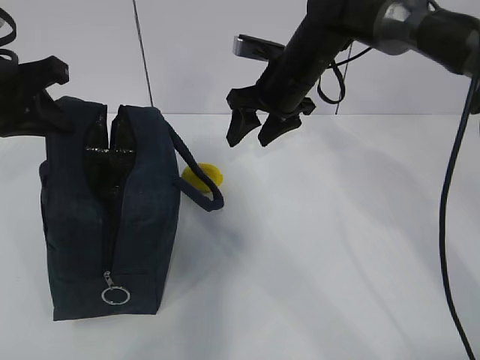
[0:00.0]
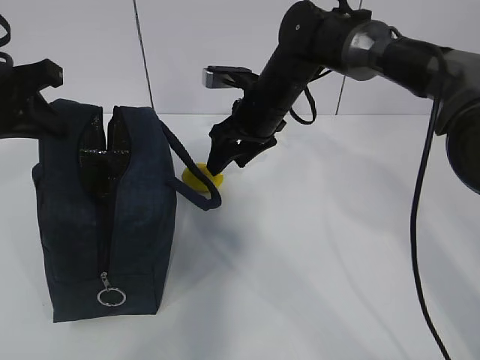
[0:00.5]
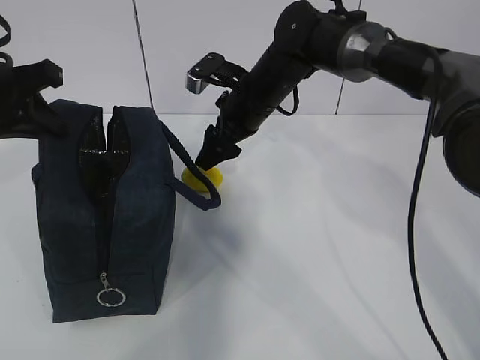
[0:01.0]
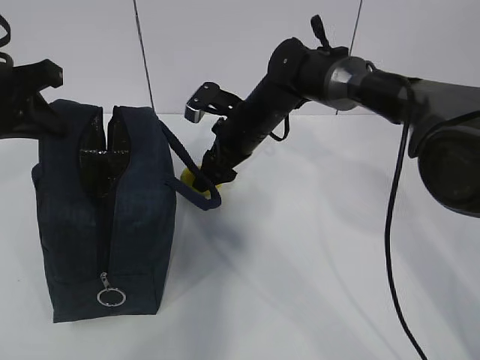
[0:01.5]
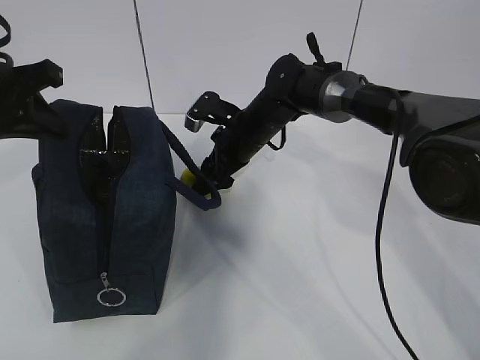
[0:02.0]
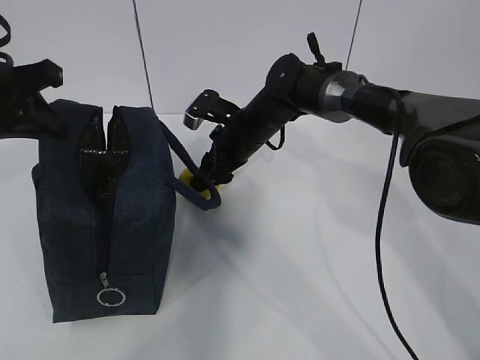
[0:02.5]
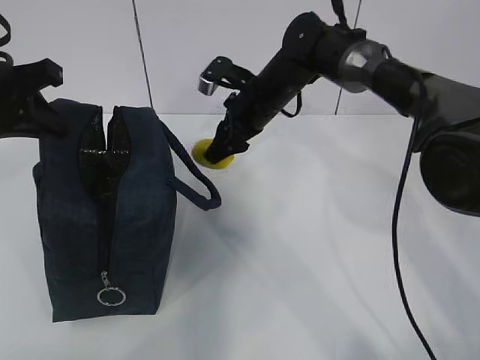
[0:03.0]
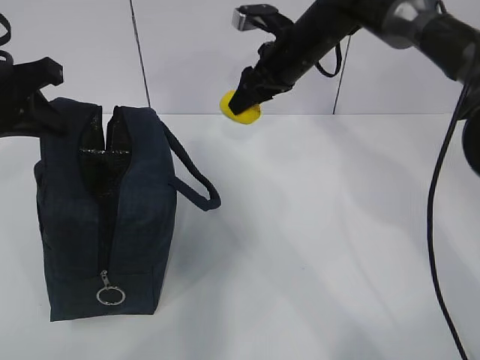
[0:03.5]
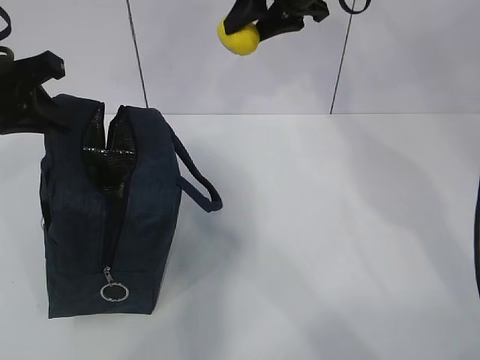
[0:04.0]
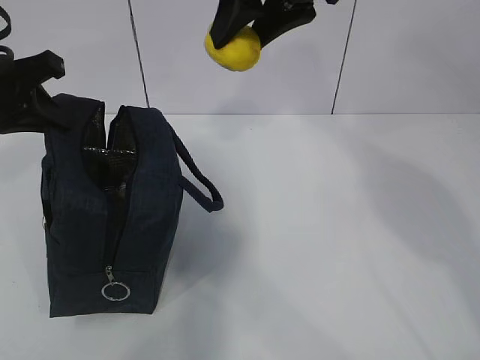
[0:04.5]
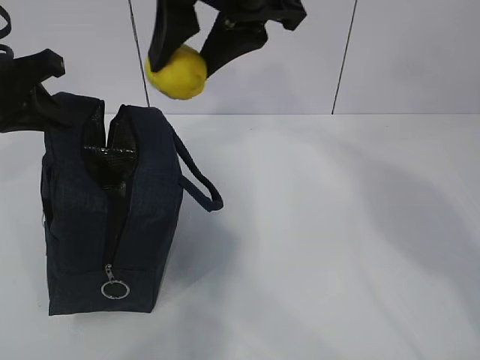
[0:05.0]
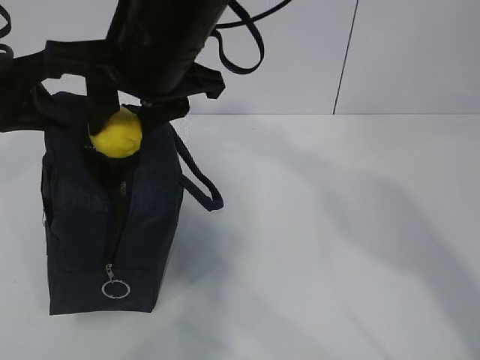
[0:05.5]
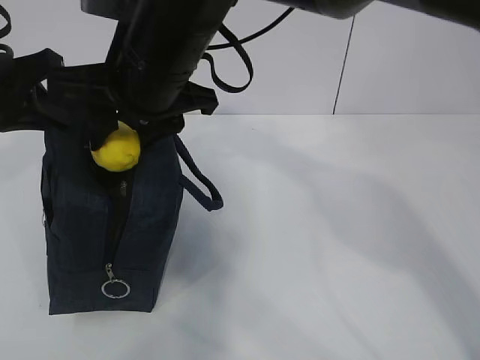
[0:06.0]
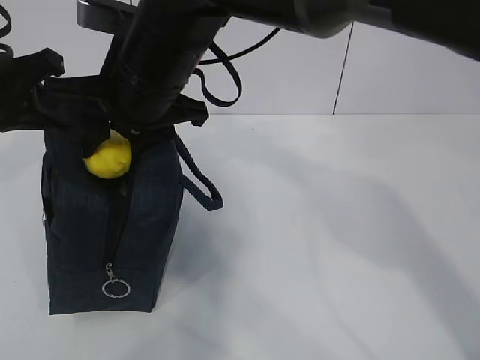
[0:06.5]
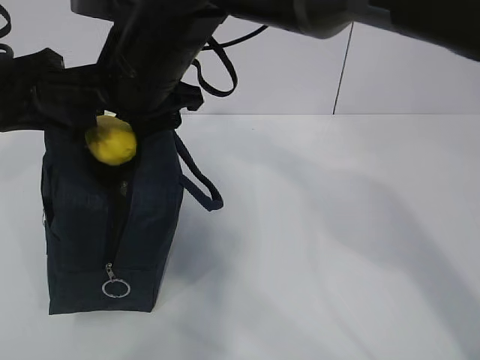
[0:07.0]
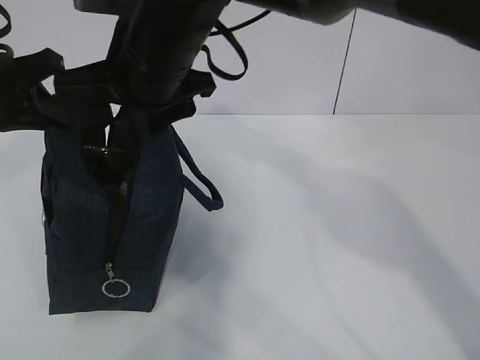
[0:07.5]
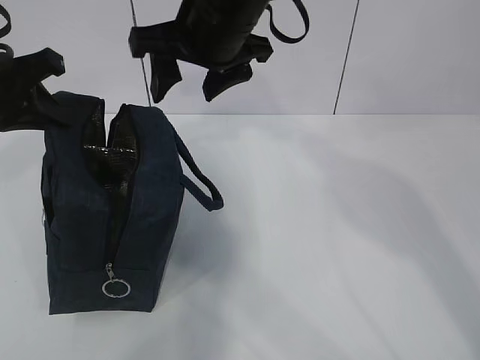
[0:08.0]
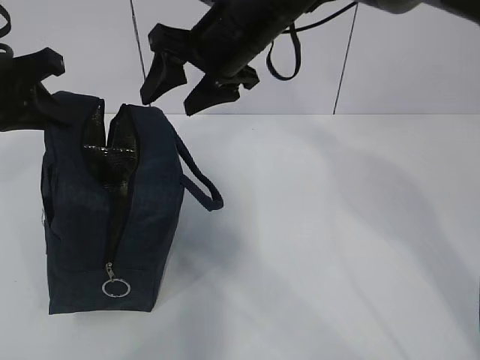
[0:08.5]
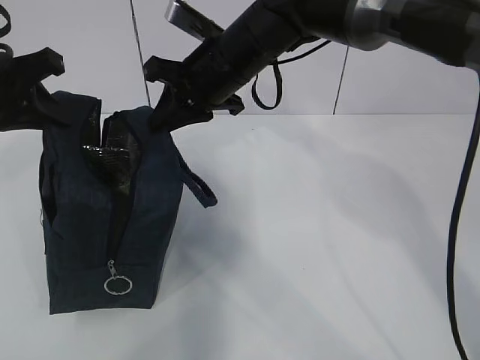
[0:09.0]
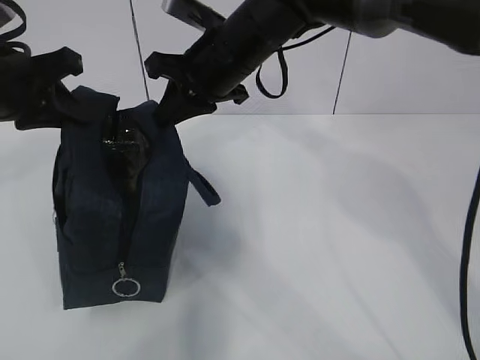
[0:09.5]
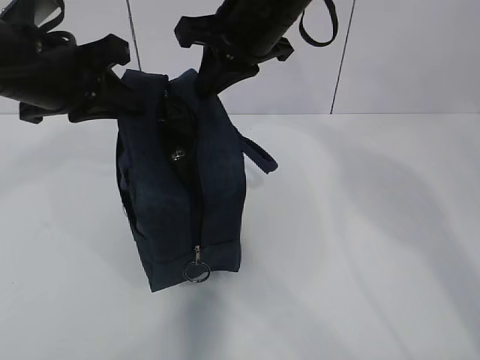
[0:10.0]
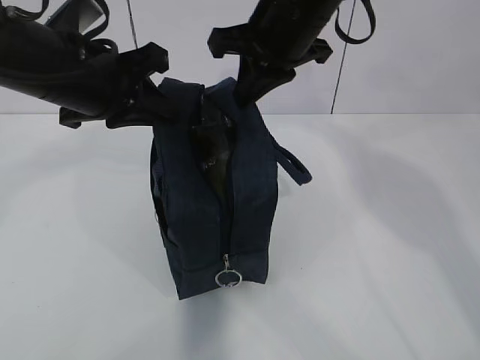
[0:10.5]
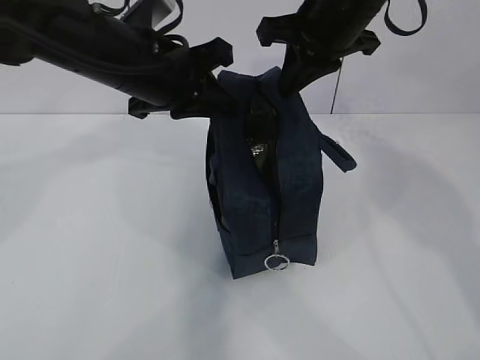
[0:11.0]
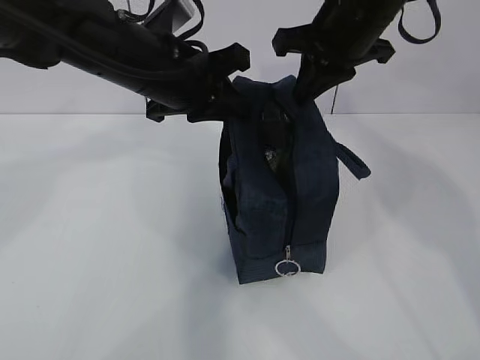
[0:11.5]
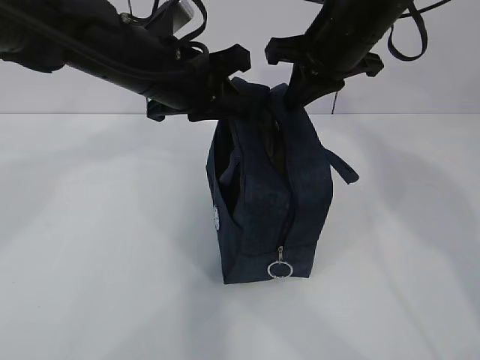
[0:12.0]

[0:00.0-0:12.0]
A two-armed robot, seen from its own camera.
Step, 1.5 to 2.5 s: Grab the lunch bag with your right hand.
Step, 3.0 to 6.5 s: Move the lunch bag to the right.
0.0 to 2.0 s: The right gripper goes some 10 cm downward and to the left.
2.0 to 4.0 s: The right gripper is displaced upward by about 20 cm.
4.0 to 6.0 s: The right gripper moves to the left and backward, about 20 cm.
6.0 to 8.0 s: The right gripper travels to the right by roughly 5 cm.
8.0 to 10.0 s: The right gripper closes its fingers. The left gripper moves to the right, about 5 cm.
10.0 to 12.0 s: The two grippers go about 10 cm to the right.

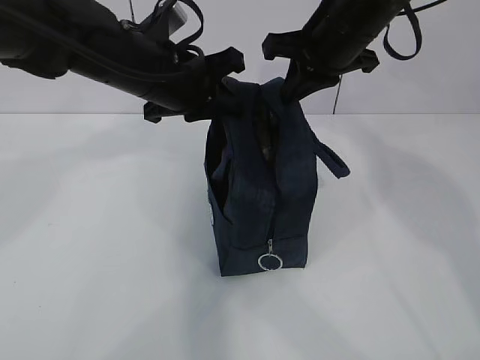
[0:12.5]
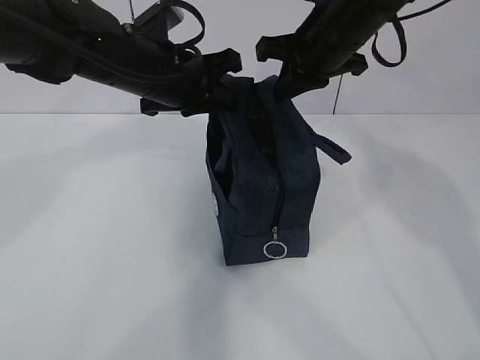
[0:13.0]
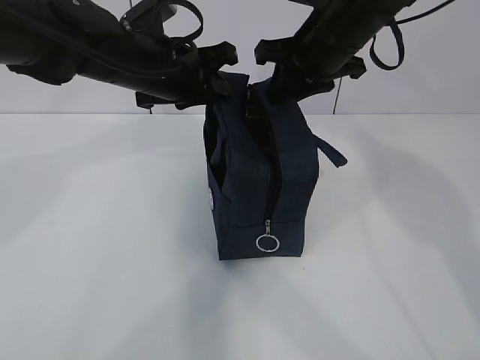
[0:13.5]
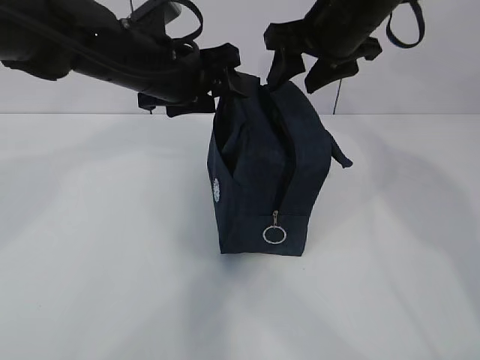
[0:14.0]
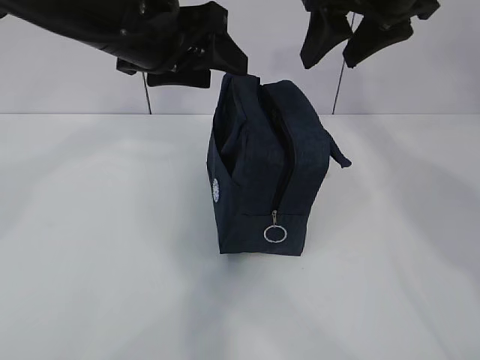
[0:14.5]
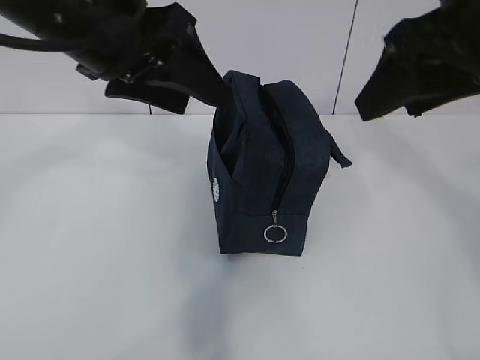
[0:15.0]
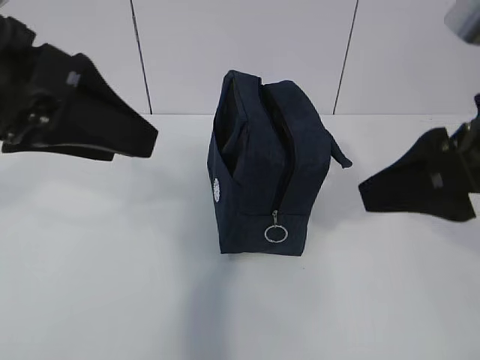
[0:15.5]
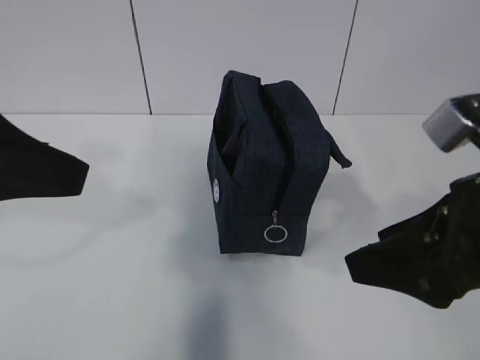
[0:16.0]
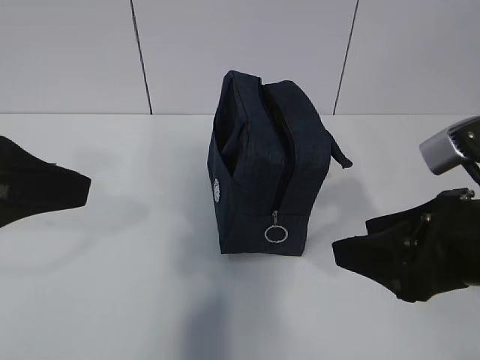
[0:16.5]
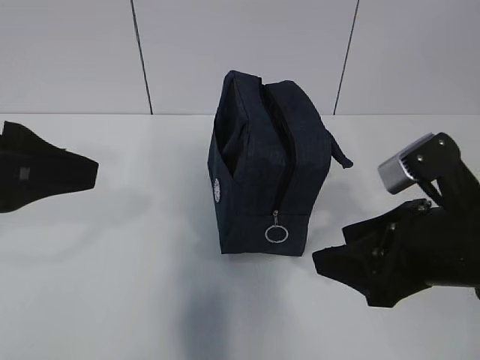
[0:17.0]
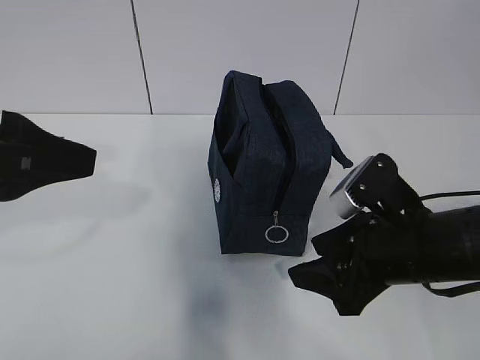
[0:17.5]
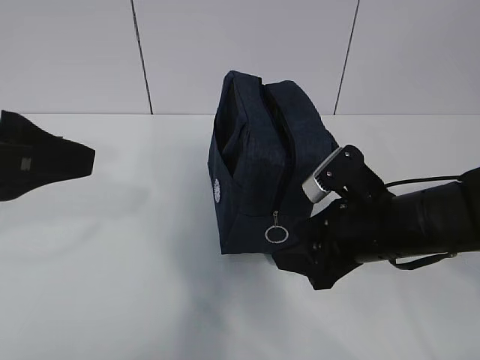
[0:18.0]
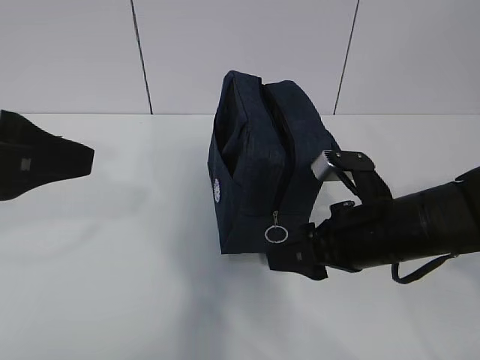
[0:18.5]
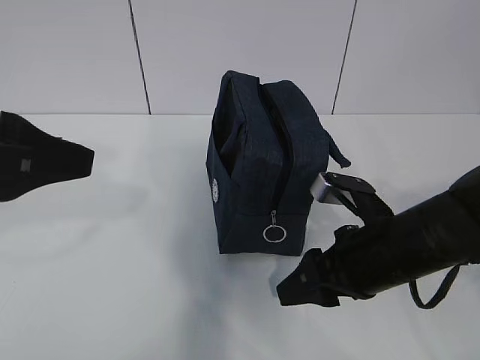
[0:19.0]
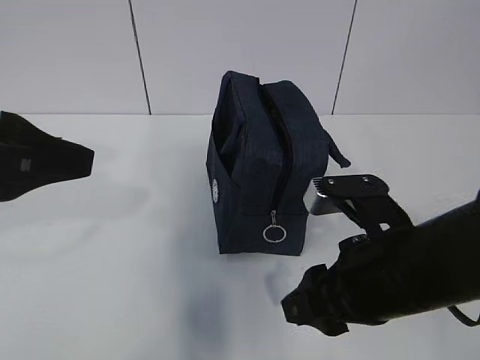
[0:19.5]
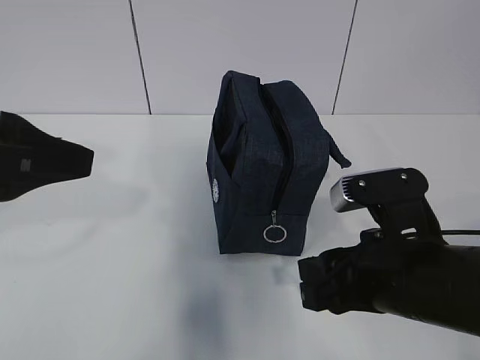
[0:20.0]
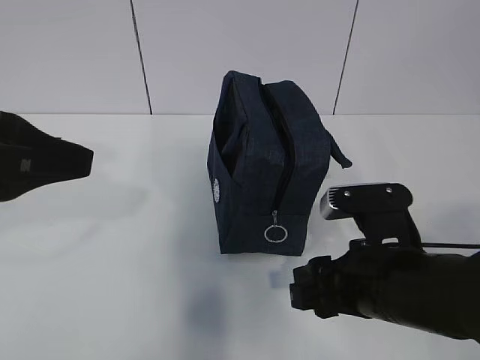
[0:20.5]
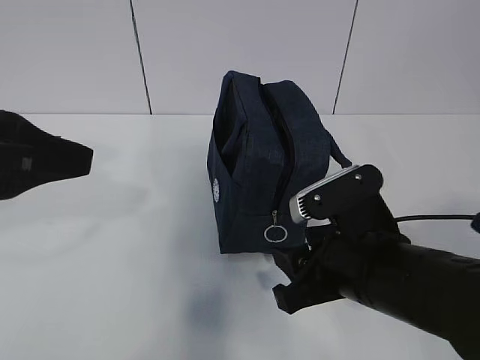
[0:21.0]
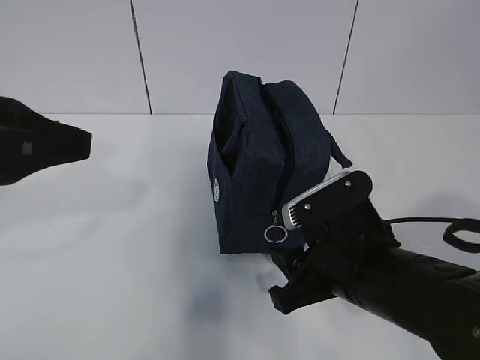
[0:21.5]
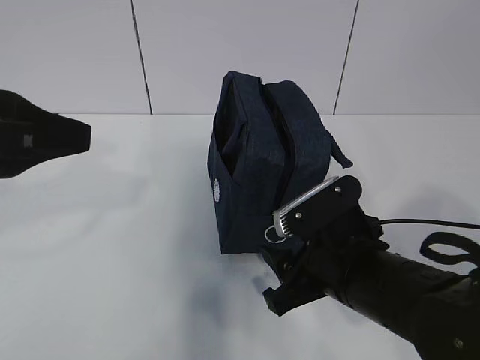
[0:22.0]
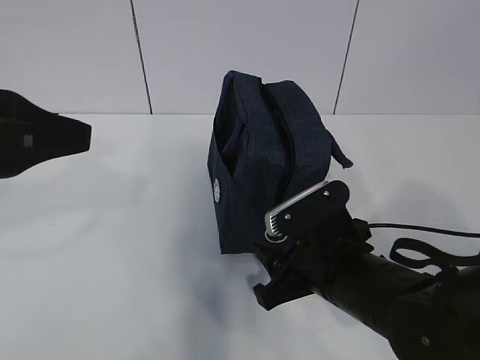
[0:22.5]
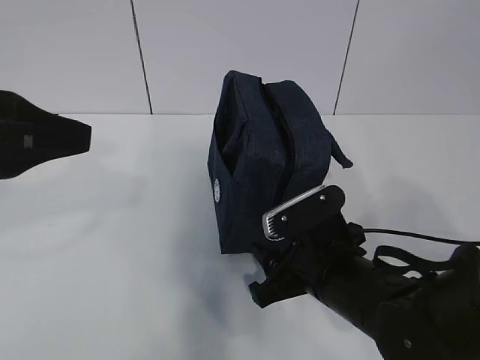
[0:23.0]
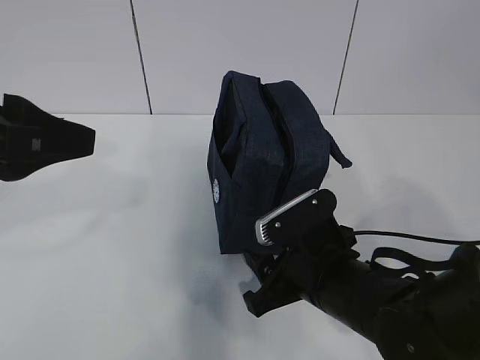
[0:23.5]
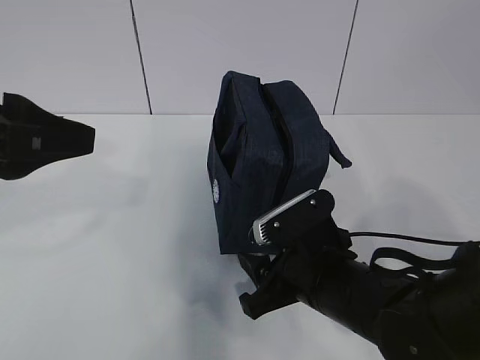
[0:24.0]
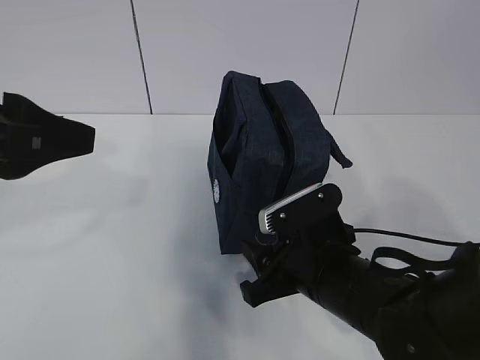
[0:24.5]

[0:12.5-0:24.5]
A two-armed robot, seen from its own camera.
12.5 to 14.5 s: The grippers both shift upward by approximately 5 cm. The right gripper opens up. Meanwhile the left gripper opens up.
14.5 to 16.5 s: The right gripper moves backward and downward, roughly 25 cm, while the left gripper goes roughly 20 cm backward and to the left.
16.5 to 18.5 s: The right gripper travels forward and downward by roughly 15 cm.
18.5 to 20.5 s: The right gripper is displaced backward by approximately 5 cm.
20.5 to 22.5 s: The right gripper changes place by some 5 cm.
22.5 to 24.5 s: The grippers stay close to where they were, moving slightly.

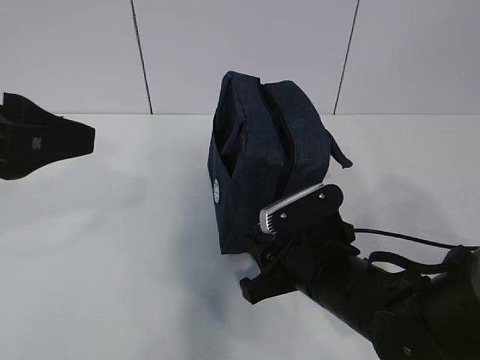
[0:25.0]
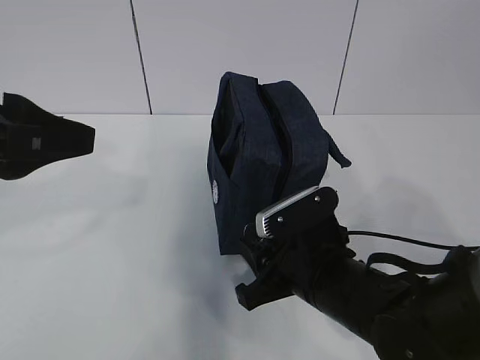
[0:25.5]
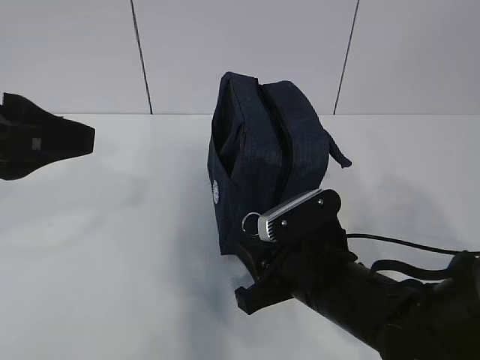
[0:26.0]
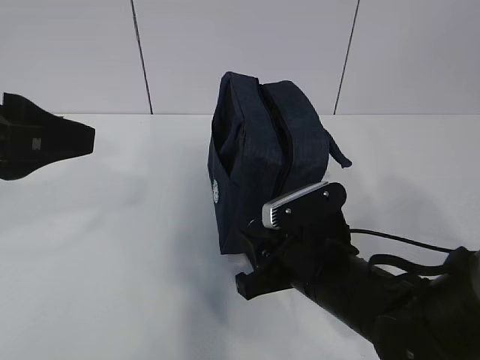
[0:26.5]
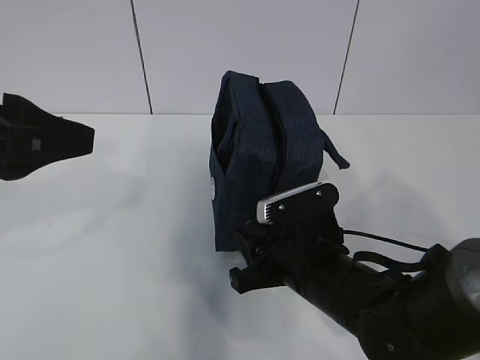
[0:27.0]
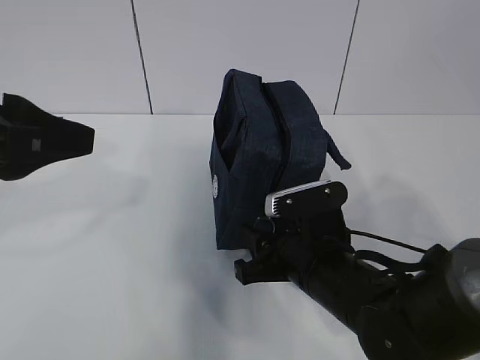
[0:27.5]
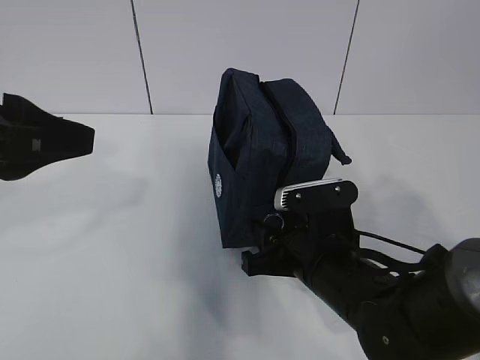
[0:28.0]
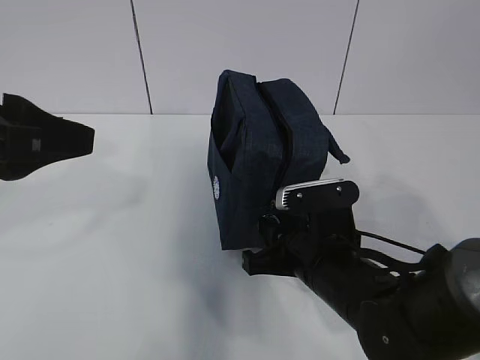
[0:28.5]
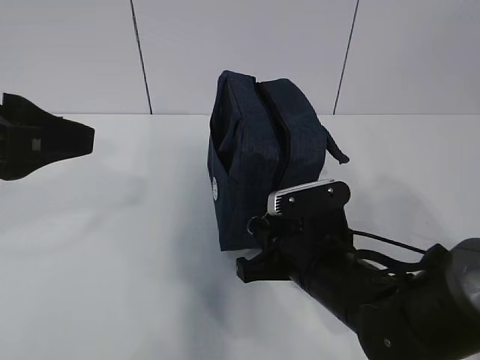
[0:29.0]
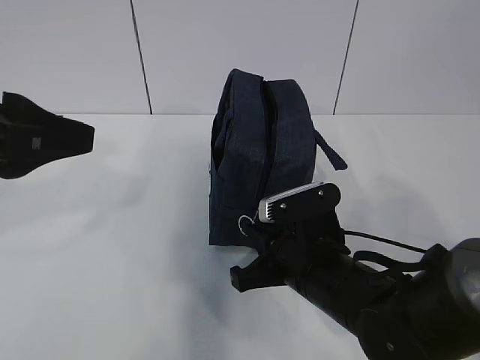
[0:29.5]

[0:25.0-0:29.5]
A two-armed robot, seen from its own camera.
25.0 to 27.0 s: There are only small adjustments of the grippers.
27.0 to 29.5 s: The right gripper closes up.
